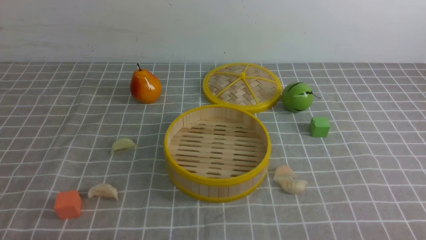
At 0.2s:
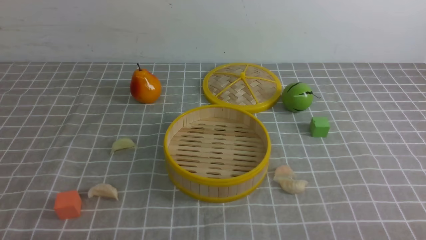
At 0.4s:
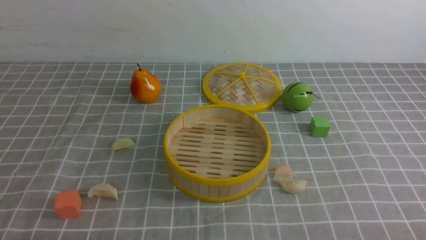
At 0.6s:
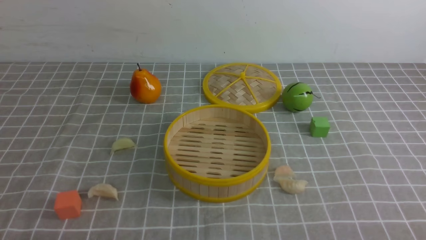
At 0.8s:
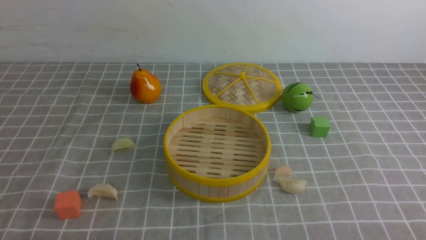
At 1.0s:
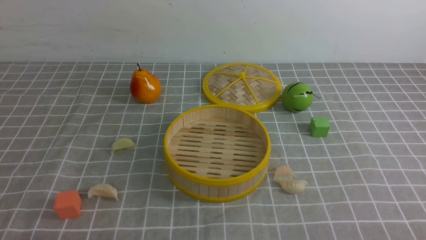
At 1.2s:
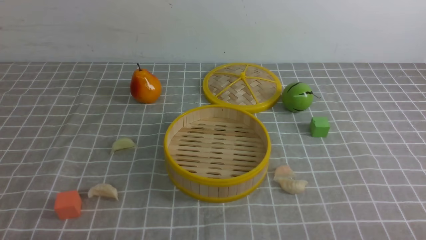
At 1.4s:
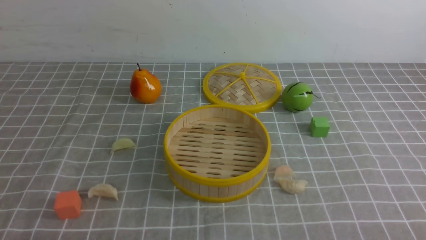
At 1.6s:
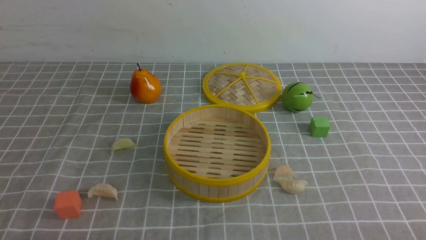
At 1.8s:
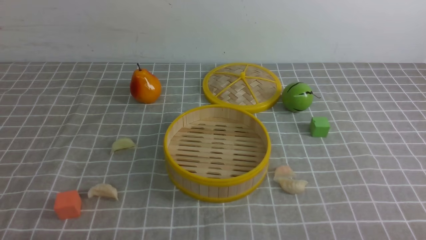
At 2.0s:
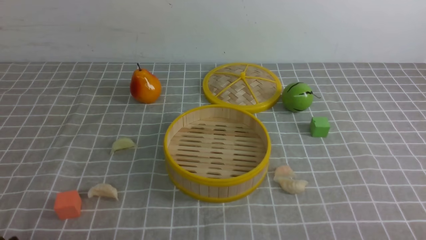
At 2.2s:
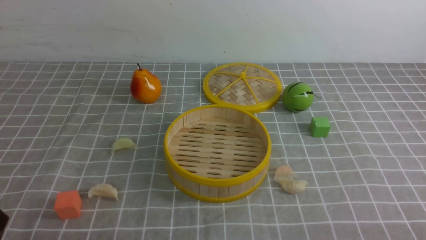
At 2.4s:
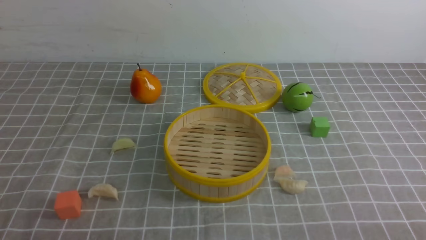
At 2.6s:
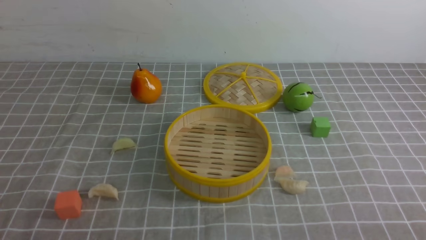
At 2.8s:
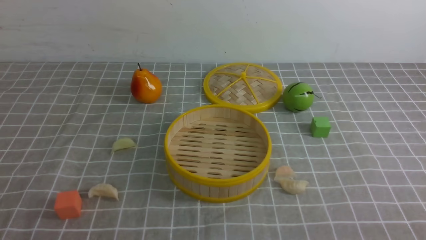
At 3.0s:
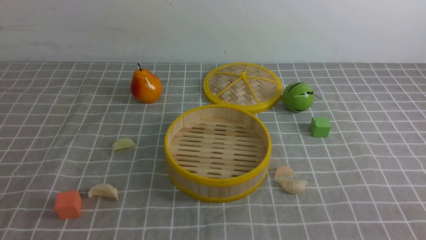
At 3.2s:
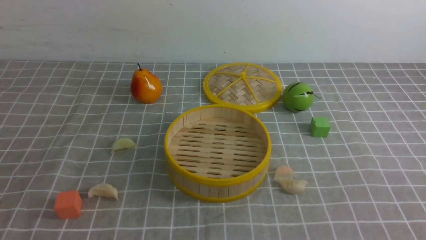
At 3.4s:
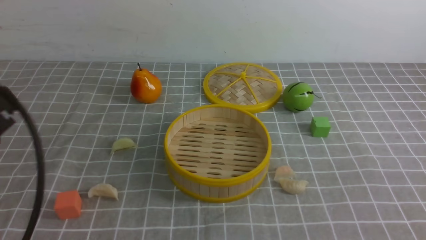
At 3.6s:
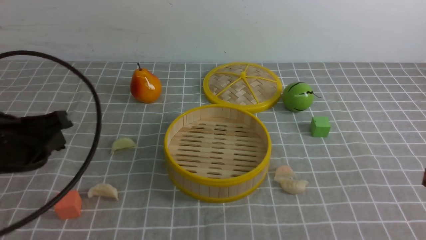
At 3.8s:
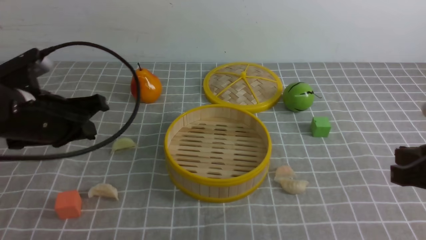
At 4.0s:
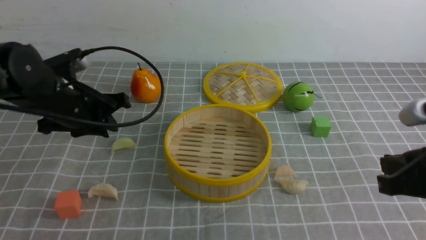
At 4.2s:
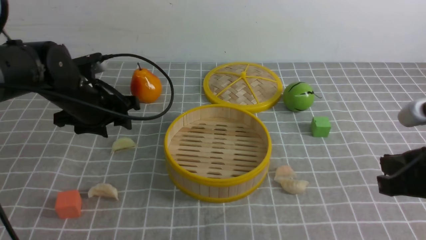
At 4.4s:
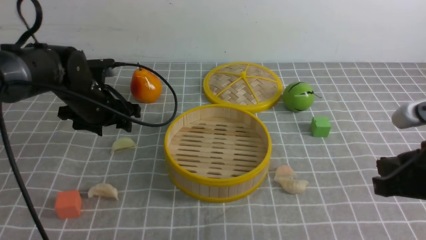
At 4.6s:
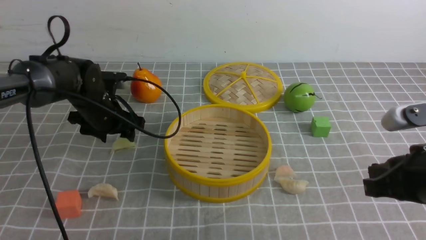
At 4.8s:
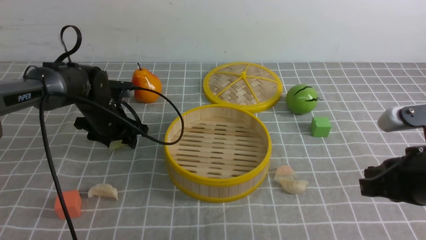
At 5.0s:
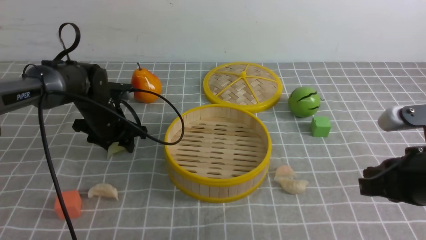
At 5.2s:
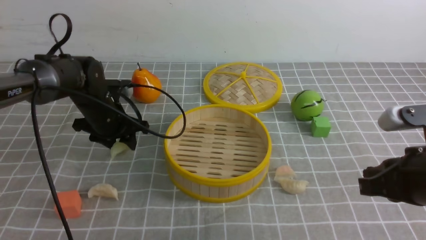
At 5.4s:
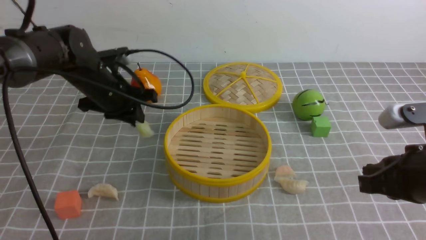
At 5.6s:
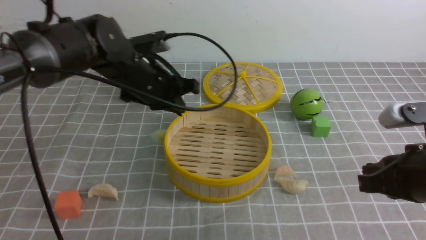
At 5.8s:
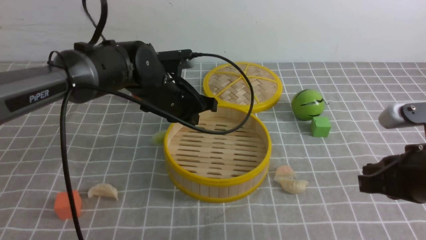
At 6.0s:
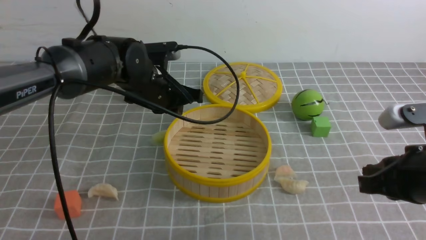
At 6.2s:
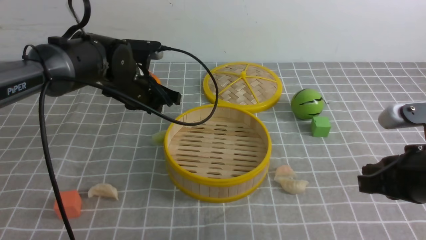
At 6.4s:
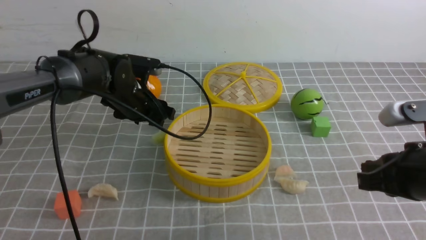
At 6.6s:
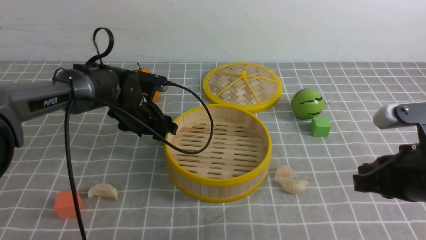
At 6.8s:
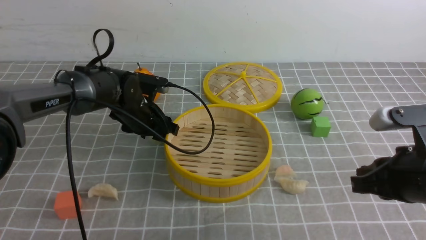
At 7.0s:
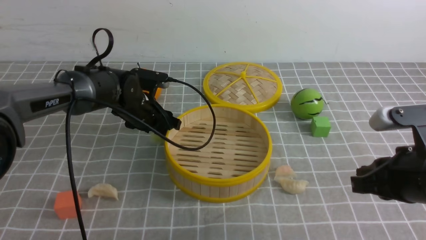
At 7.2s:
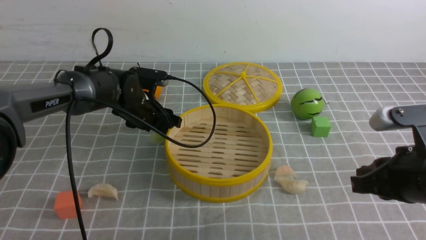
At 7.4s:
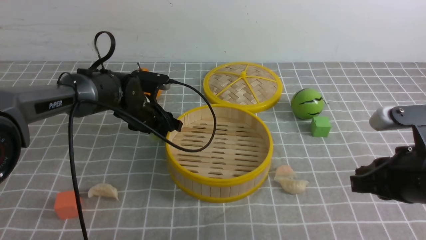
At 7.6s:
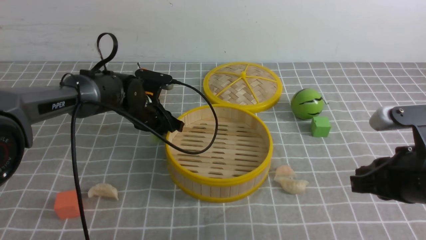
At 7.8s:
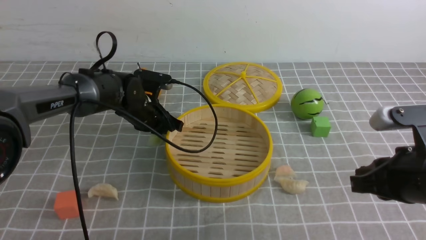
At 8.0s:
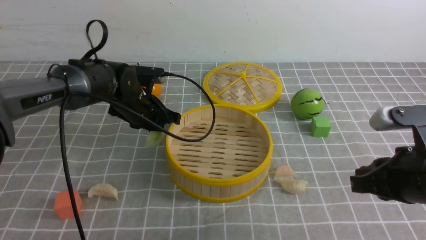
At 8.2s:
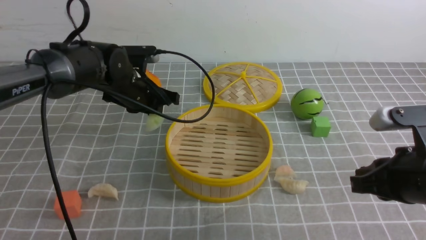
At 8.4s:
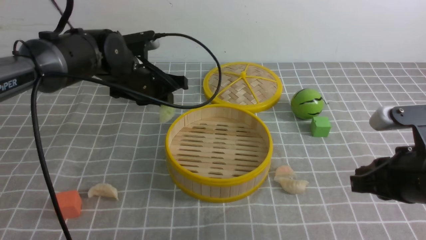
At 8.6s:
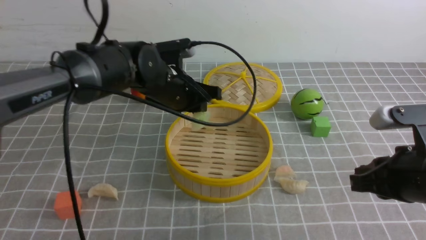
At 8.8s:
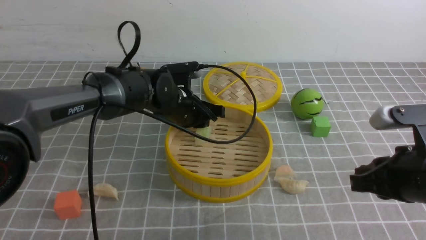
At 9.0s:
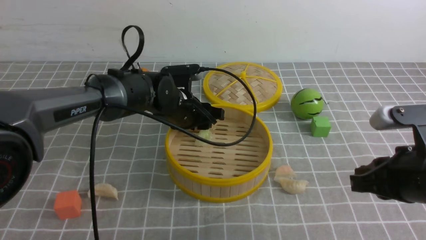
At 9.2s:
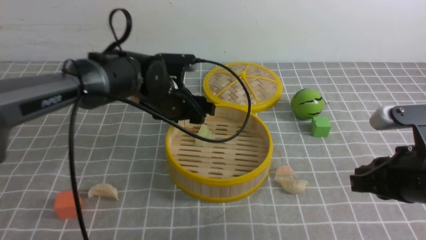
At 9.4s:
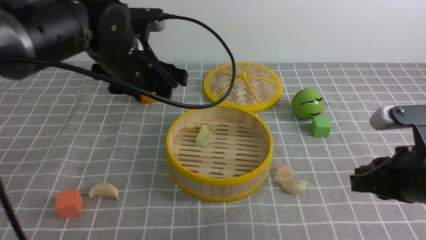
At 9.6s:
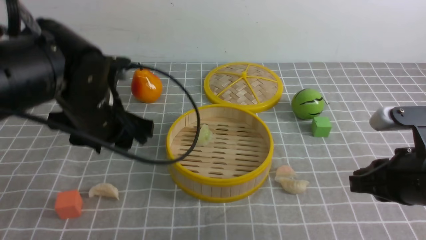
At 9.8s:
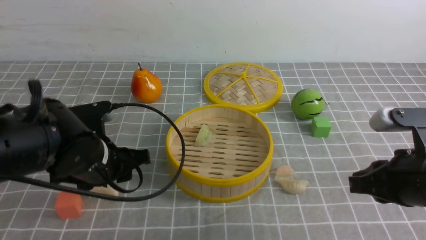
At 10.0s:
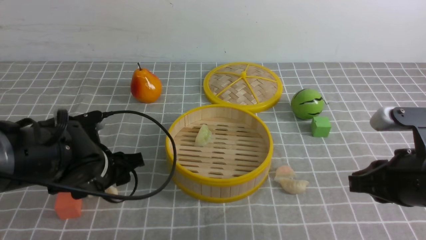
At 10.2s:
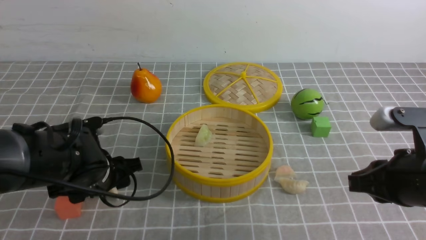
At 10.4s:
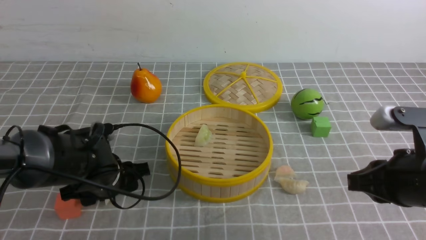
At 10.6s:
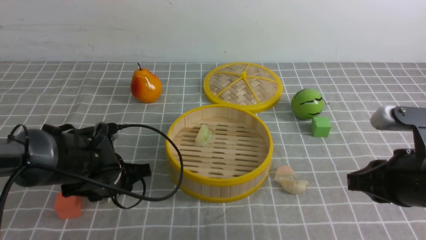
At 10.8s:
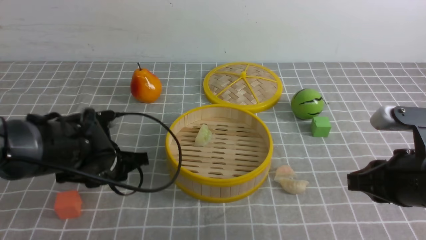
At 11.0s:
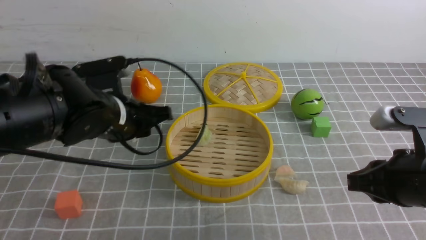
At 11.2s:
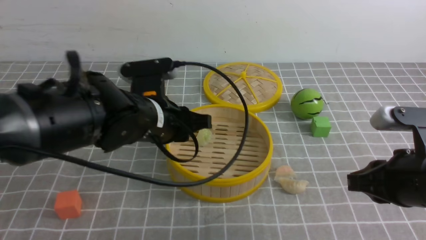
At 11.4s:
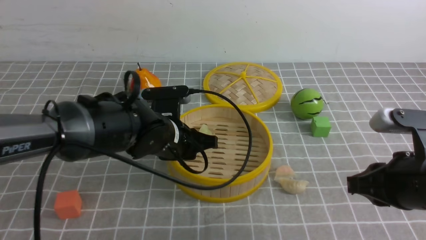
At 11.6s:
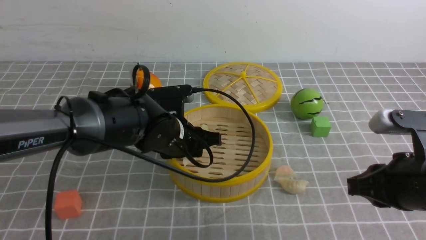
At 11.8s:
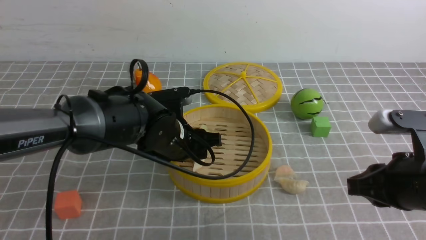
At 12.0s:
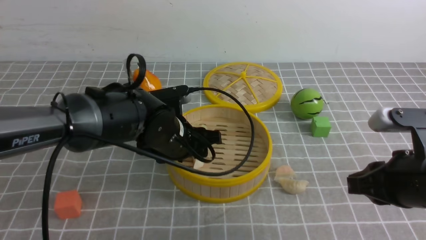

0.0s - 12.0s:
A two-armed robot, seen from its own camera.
Task of the whole recording: put the dumplings into the steamer on the table with the grey tablecloth.
Step, 0.0s - 5.2s: use the left arm to grab a dumpling.
Step, 5.4s - 9.0s: use the left arm to put the dumpling into the steamer.
Step, 9.4s - 10.6s: use the left arm to grab a dumpling.
3.0s - 4.4s: The left gripper heads forward, covering some 35 cm, and opens its fingers. The right gripper shifts approximately 15 cm forward and to the left.
4.4s - 6.0s: The left gripper goes some 10 cm to the right, and closes up.
6.0s - 7.6s: The left gripper is displaced downward by some 10 cm, and opens its fingers.
7.6s - 9.0s: The left gripper is displaced to the right by roughly 5 cm.
9.0s - 10.4s: The left gripper is displaced backward and to the left by some 15 cm.
10.4s - 12.0s: The left gripper goes about 10 cm to the right and upward, and closes and opens again.

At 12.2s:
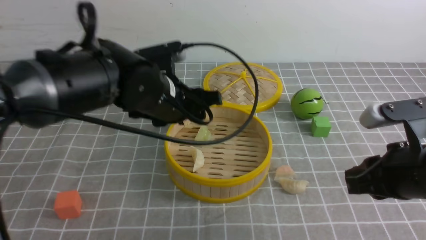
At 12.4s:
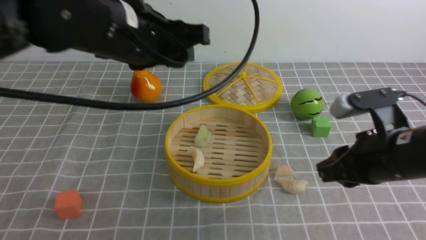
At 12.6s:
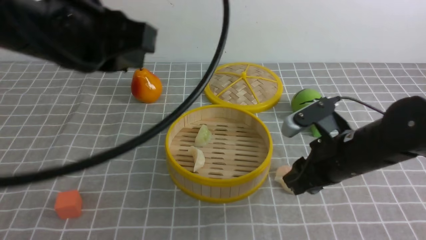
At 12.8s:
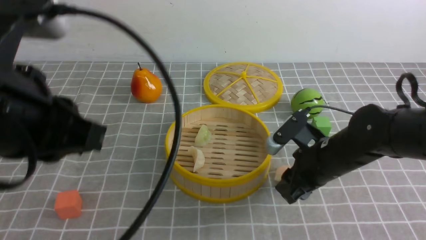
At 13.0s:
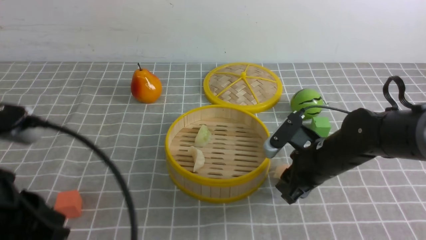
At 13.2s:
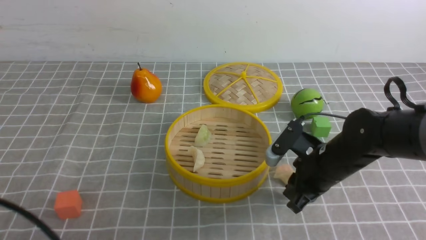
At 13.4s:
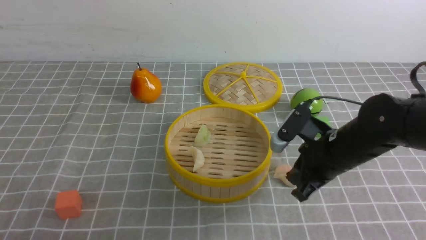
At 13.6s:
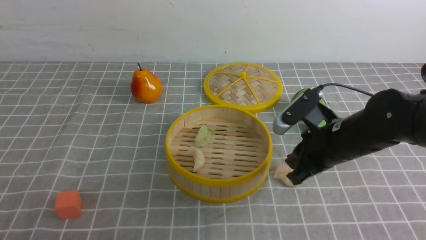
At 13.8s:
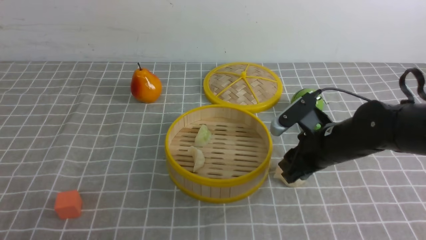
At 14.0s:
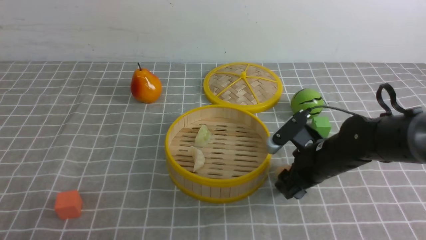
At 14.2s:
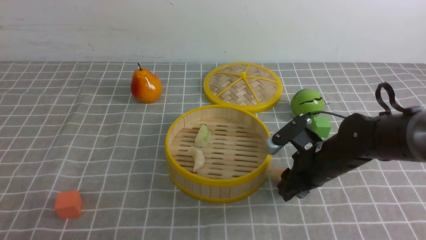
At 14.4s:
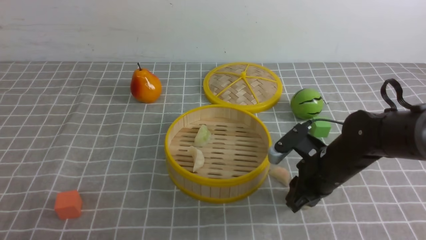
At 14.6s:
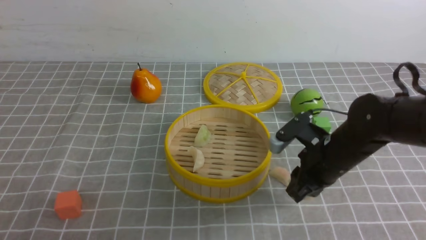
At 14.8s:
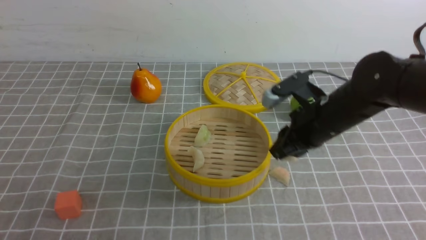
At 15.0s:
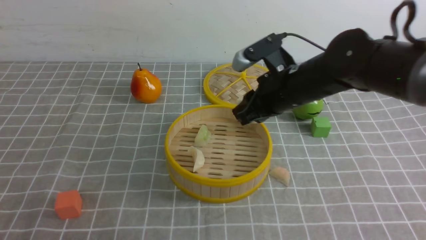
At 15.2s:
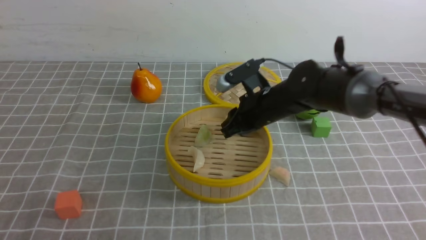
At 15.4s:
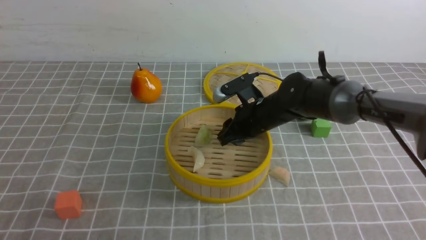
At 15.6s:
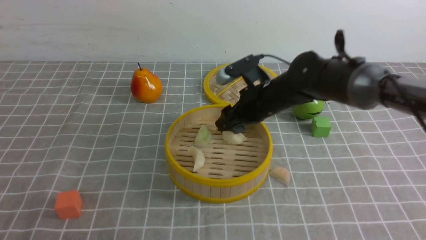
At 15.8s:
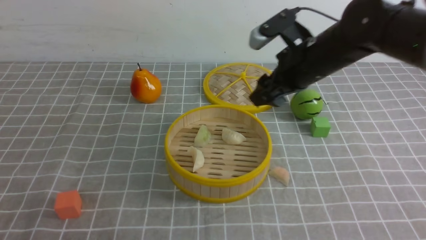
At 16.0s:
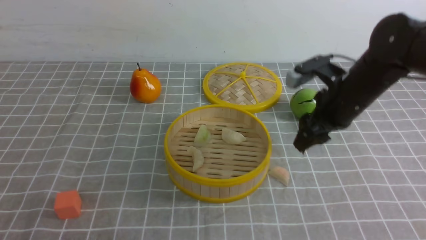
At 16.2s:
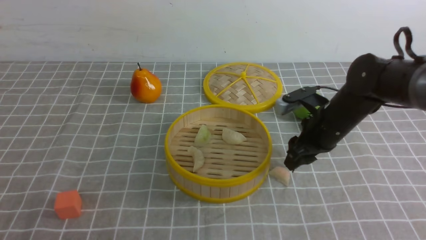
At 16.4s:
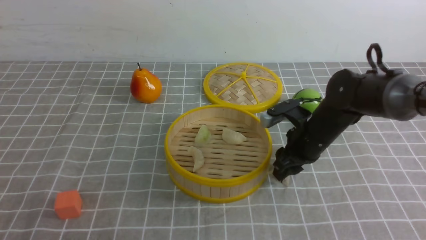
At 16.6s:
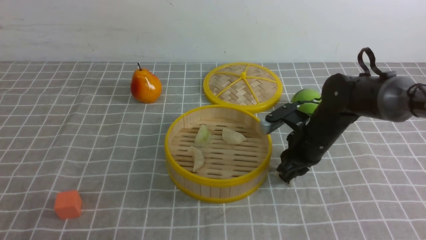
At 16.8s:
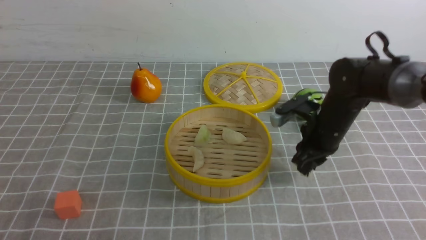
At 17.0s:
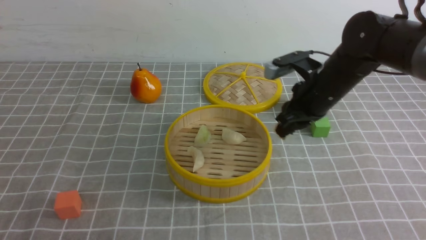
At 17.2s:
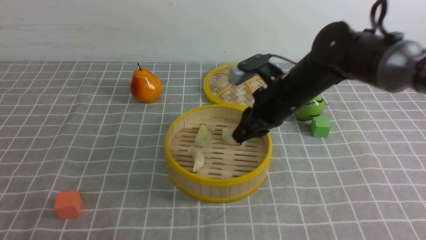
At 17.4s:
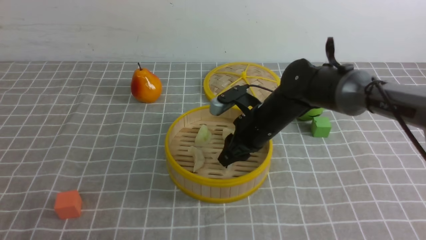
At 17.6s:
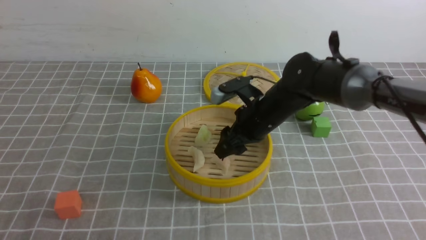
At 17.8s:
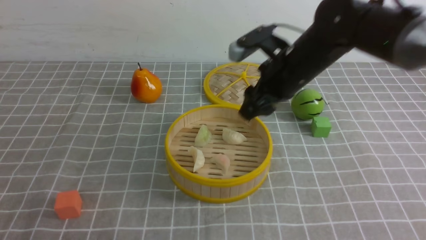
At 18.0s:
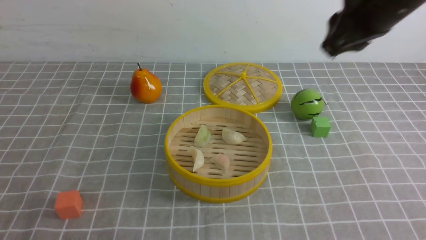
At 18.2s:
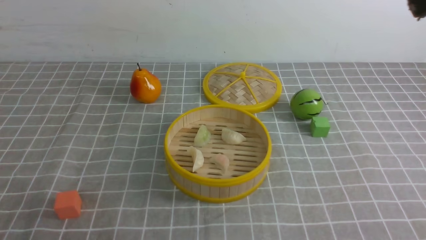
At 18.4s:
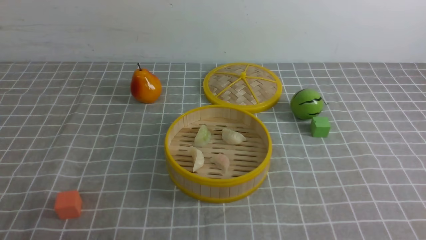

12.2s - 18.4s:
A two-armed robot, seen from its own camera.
Task of the whole recording: put the dumplings into the steamer on the table with the grey tablecloth.
Step, 12.4s - 13.6s: use the right arm to grab a dumpling.
Step, 14.0s - 15.6s: use the right arm to put the dumpling into the steamer.
Step, 15.8s - 16.8s: use the right arm to grab a dumpling.
Step, 17.0s - 17.6s: use the right arm to put the dumpling into the steamer.
12.2s - 13.8s: The right gripper moves forward, downward and to the left, about 15 cm. The left gripper heads backward and to the left, covering about 35 cm, and closes its fingers.
13.8s - 15.4s: The right gripper heads forward and to the left, covering roughly 15 cm.
15.4s - 16.8s: The right gripper is displaced to the right by approximately 10 cm, and opens and closes again.
16.8s - 18.4s: The right gripper is displaced upward and backward by about 35 cm, and closes up.
